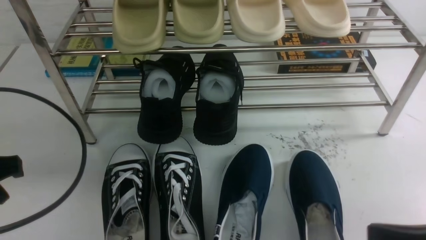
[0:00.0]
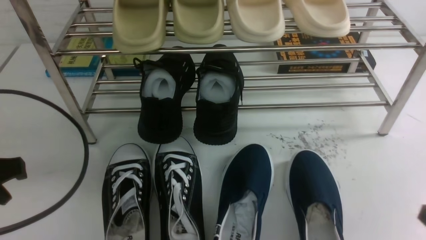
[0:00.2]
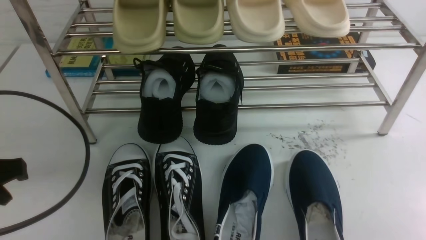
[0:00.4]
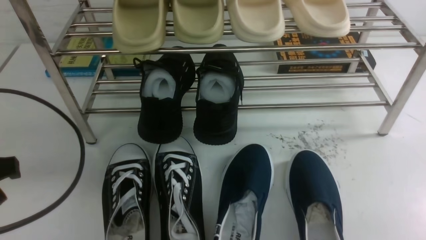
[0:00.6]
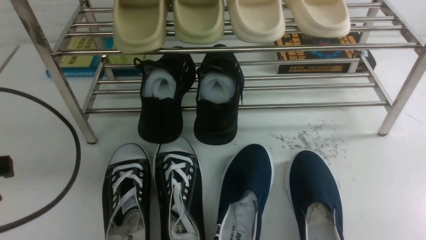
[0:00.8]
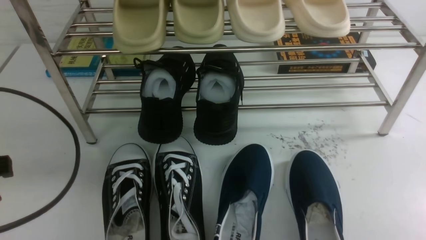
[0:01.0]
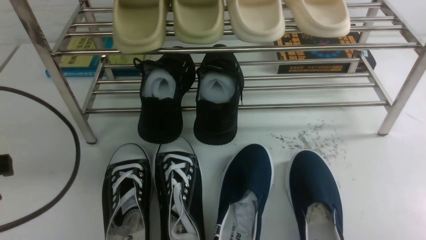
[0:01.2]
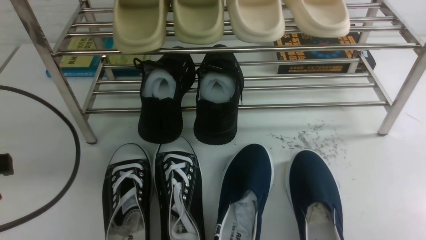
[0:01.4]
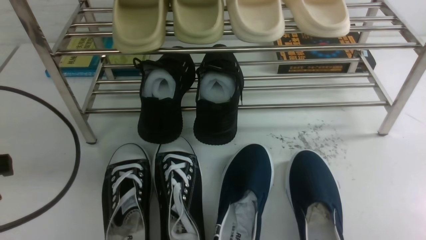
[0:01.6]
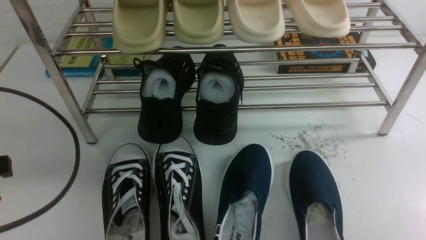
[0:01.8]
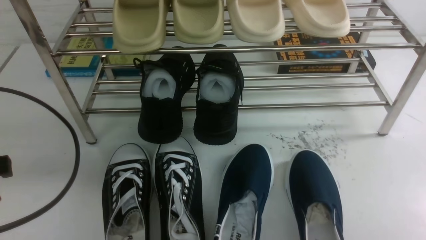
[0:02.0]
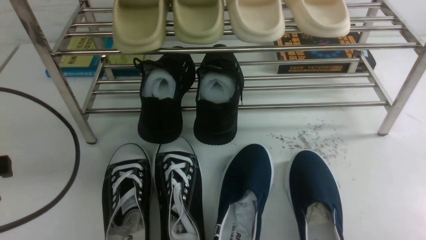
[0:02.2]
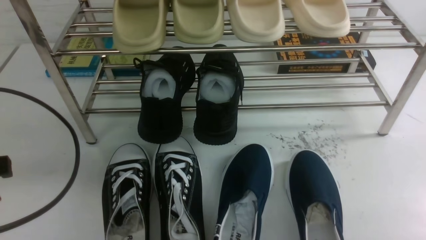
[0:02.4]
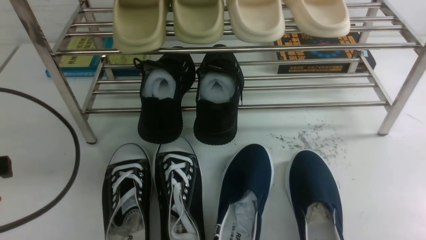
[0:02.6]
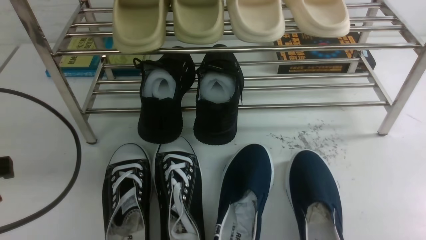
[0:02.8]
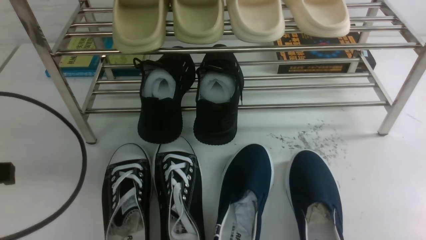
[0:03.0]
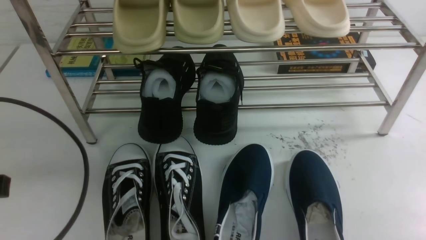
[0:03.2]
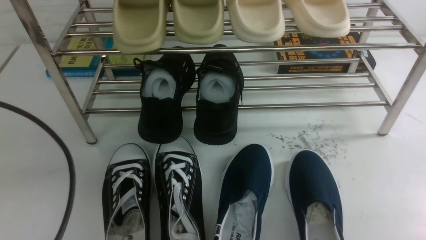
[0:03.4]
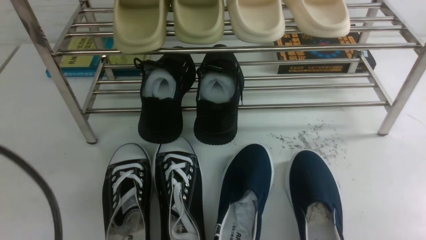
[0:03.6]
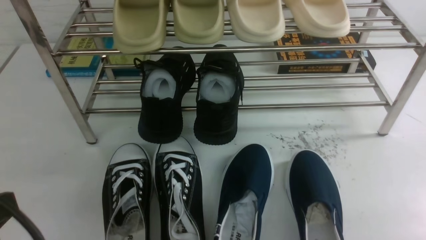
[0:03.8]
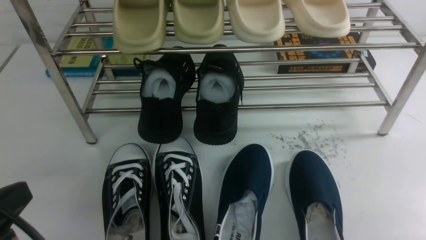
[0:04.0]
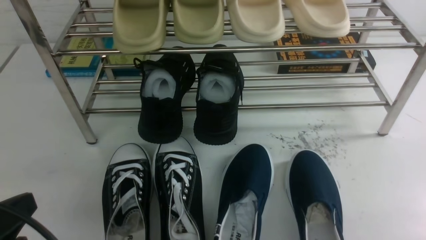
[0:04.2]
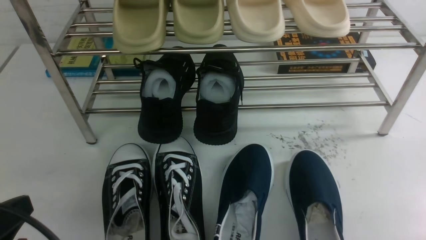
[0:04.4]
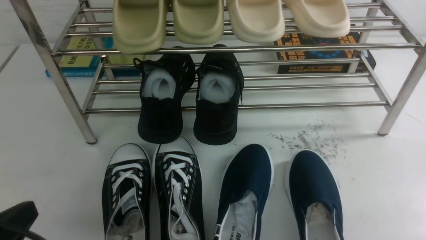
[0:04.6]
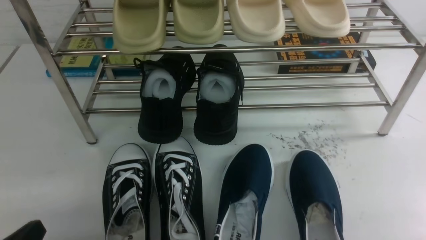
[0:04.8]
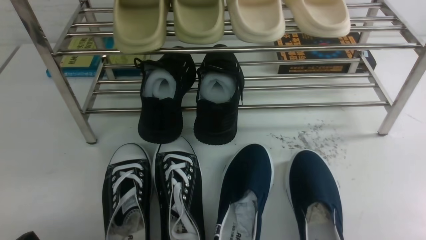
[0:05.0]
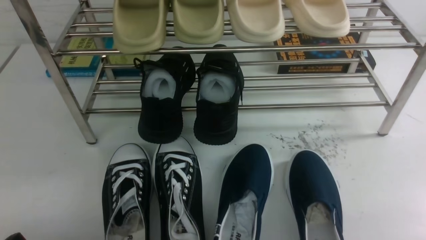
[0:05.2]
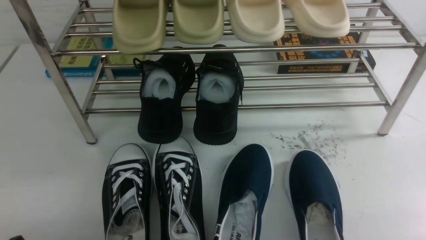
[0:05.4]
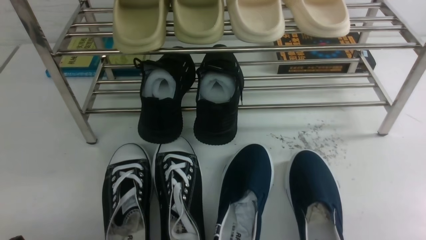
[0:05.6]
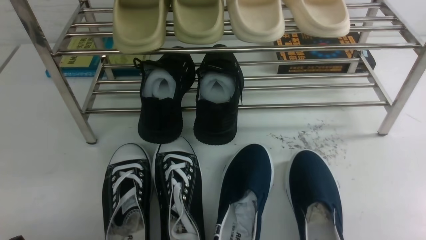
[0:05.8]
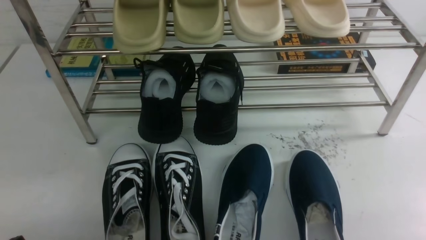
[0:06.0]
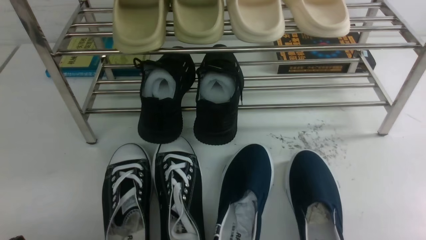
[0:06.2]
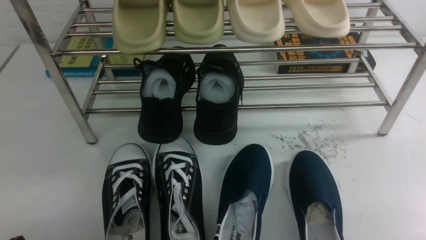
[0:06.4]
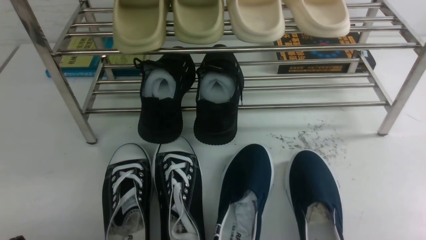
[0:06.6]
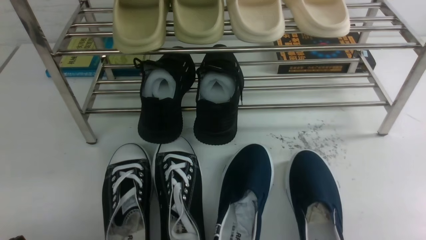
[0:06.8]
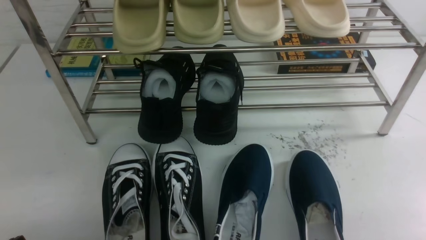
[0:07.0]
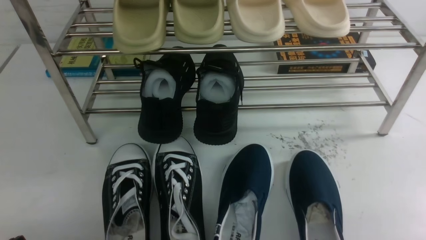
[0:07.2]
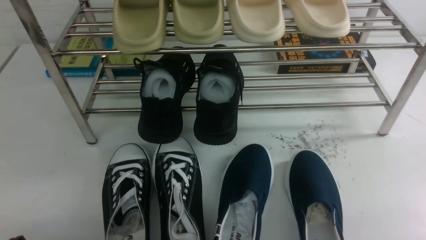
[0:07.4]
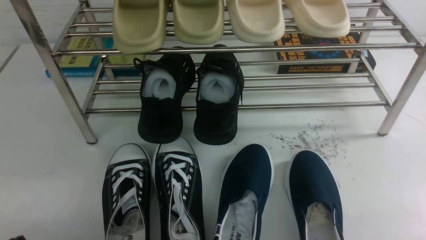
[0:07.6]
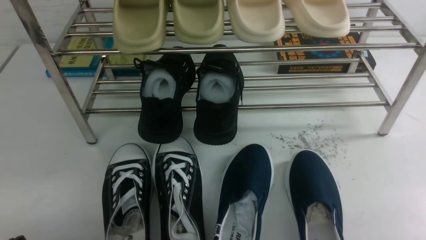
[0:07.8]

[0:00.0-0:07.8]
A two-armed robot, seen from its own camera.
0:00.0 to 0:01.6: The right gripper shifts roughly 10 cm downward and to the right.
0:01.6 to 0:03.2: The left gripper closes.
0:03.2 to 0:04.6: The left gripper moves downward and backward, roughly 10 cm.
0:04.6 to 0:06.2: The left gripper travels downward by approximately 5 cm.
0:06.2 to 0:07.8: The two grippers keep their place.
